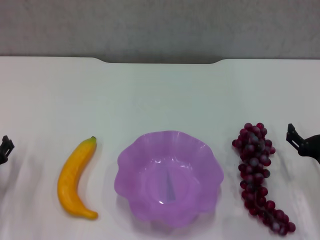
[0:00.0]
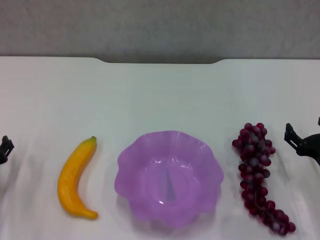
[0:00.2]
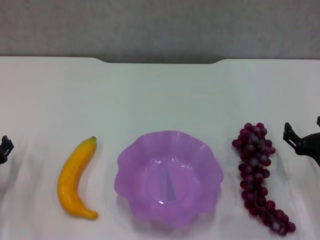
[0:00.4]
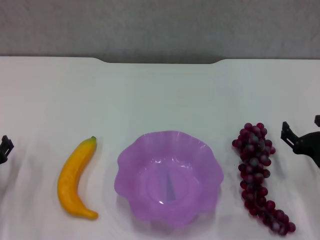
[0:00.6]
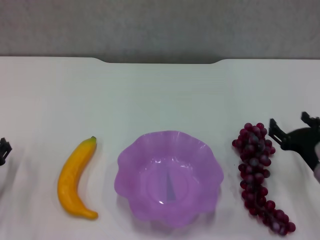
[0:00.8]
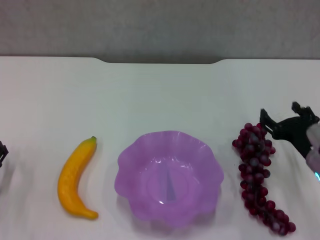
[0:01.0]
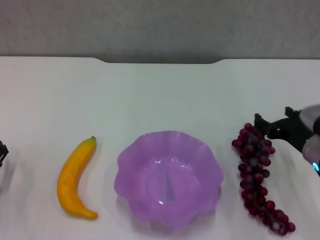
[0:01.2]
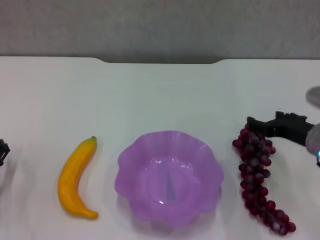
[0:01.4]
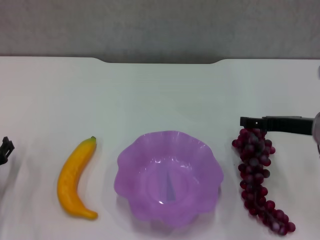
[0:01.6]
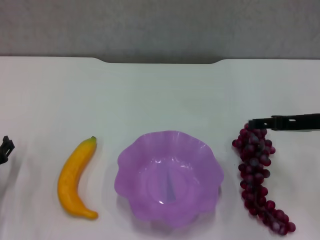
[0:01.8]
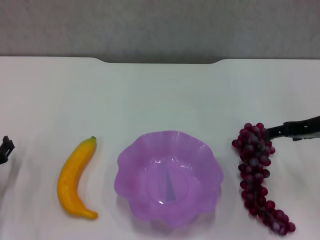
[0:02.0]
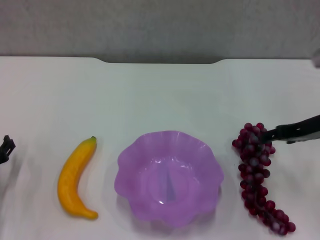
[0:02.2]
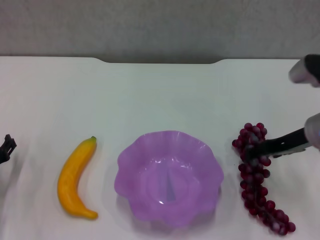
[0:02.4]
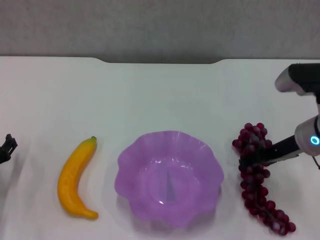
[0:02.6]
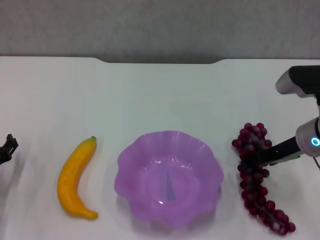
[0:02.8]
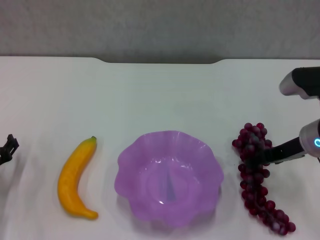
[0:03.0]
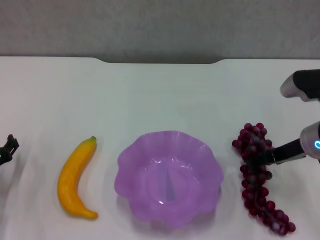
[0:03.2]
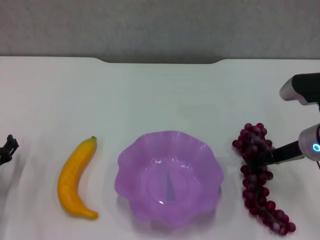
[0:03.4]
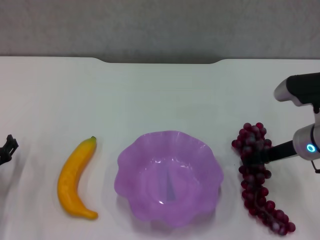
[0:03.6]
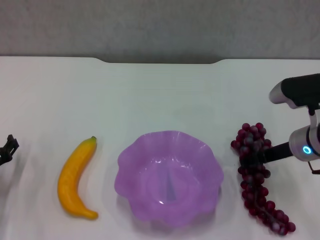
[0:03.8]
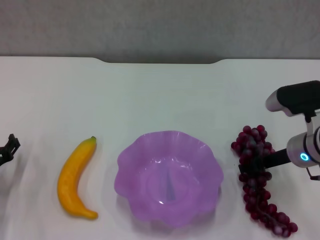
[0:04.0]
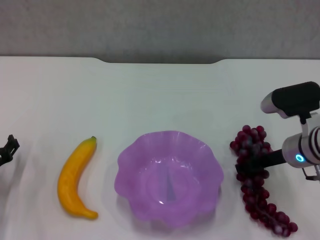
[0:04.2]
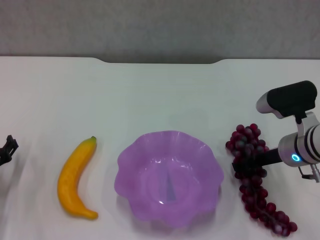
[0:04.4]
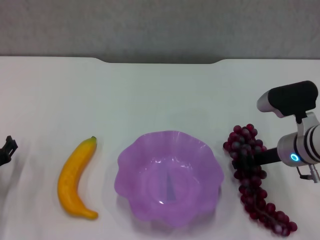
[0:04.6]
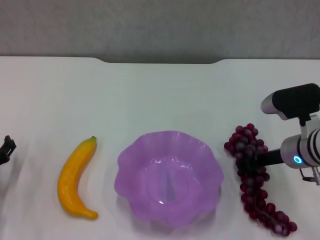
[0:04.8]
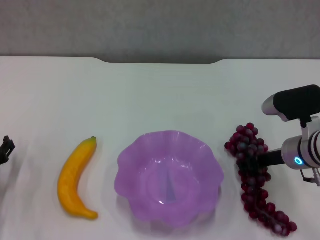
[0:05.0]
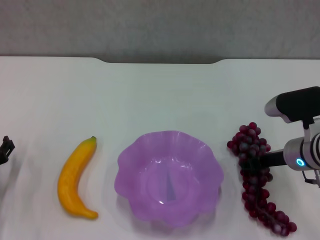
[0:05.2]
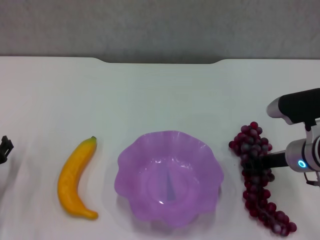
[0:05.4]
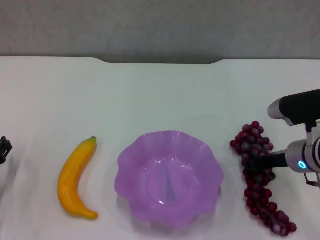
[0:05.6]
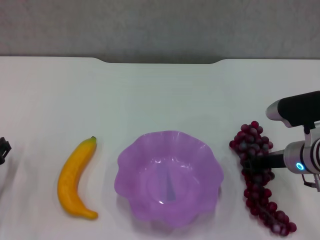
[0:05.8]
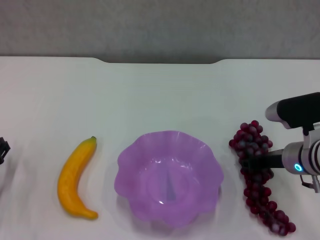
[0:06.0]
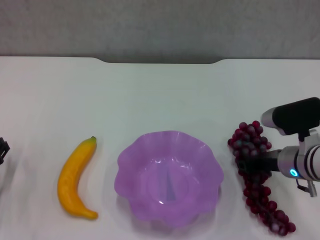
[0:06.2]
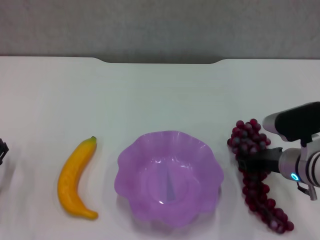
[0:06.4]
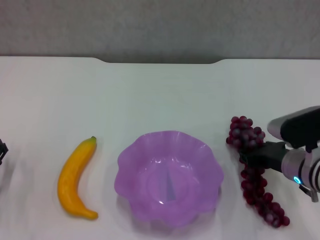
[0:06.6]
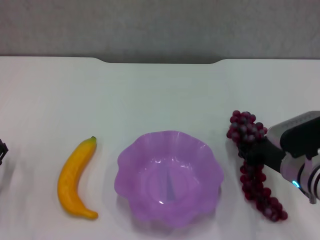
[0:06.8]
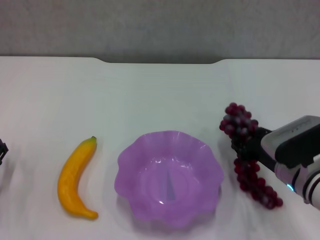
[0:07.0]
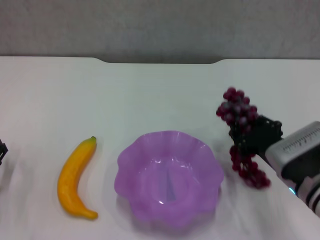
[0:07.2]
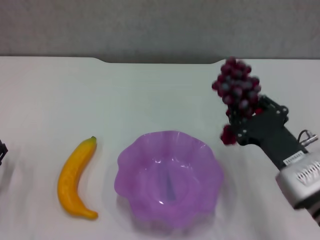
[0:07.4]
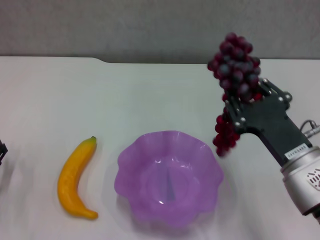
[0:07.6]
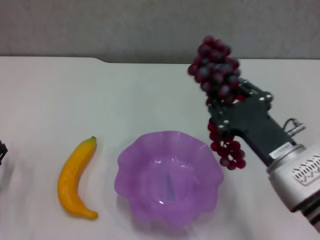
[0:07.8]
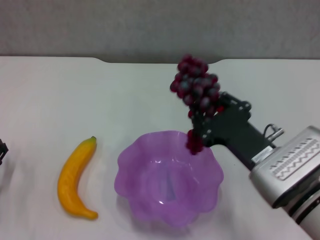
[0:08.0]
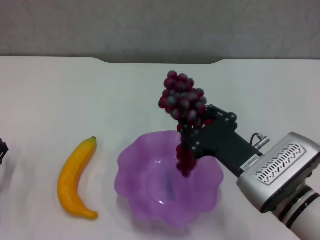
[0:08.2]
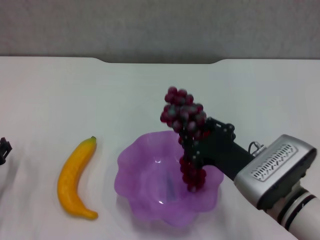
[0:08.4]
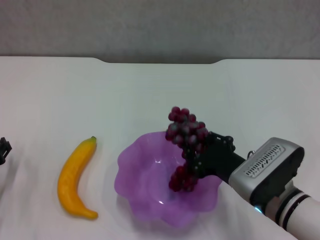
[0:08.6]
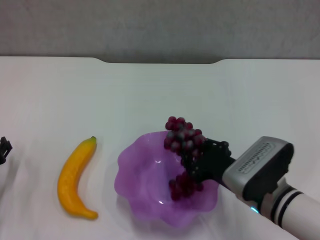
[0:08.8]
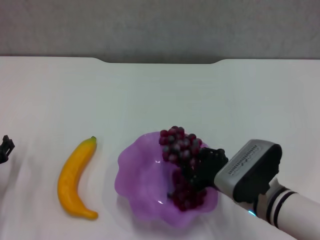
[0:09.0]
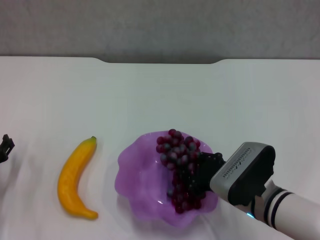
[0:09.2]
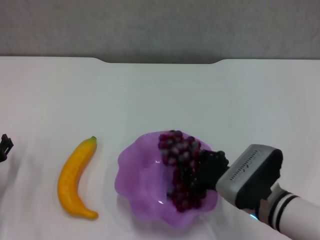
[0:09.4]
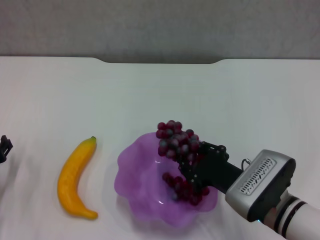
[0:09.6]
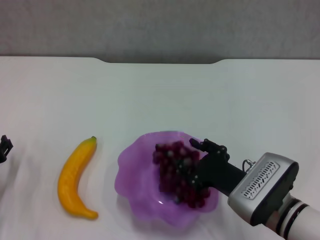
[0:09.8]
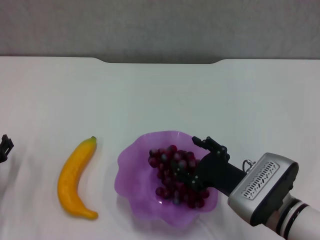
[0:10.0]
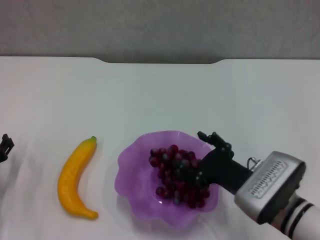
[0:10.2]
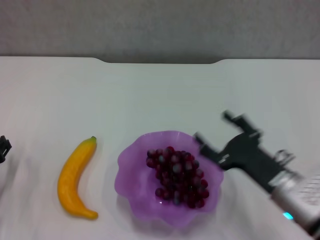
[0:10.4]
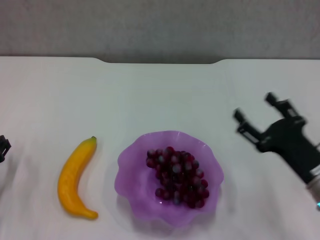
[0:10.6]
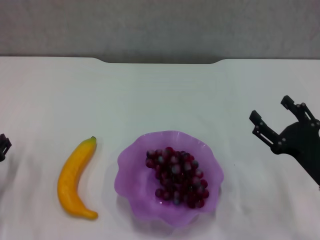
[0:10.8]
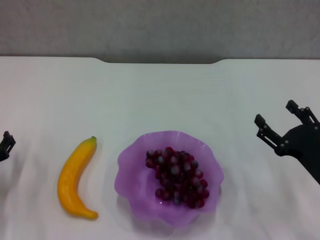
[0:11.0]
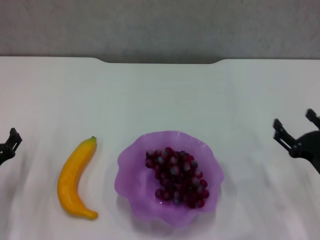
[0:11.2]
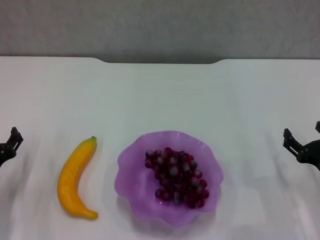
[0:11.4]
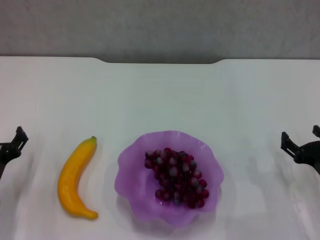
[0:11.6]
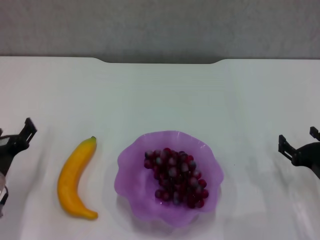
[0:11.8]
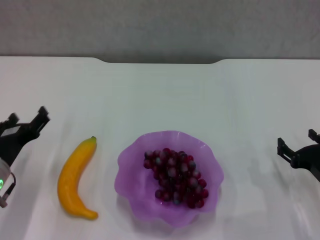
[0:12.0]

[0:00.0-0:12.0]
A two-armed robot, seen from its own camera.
Step, 0:00.0 to 0:04.4: Grasp the grape with right gripper.
Step, 0:04.6 to 0:10.4: Place the grape in the purple plate with right gripper.
0:00.0 to 0:01.6: The right gripper shifts about 15 cm upward and forward.
0:03.0 to 0:04.4: The grippers stay close to where they were, moving slightly.
0:04.4 to 0:06.0: The right gripper closes its fingers.
0:06.0 to 0:07.6: The right gripper moves backward, about 10 cm.
0:07.6 to 0:09.0: The right gripper heads downward, covering roughly 5 cm.
0:09.0 to 0:10.4: The right gripper opens its fingers.
0:10.4 to 0:12.0: The right gripper goes roughly 10 cm to the right.

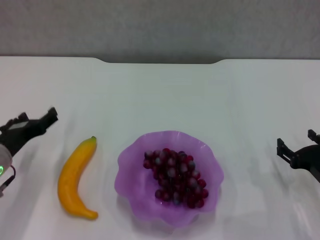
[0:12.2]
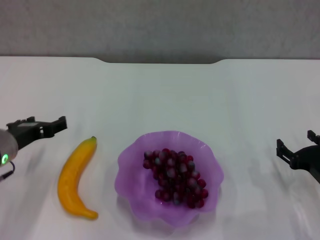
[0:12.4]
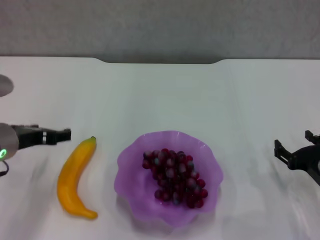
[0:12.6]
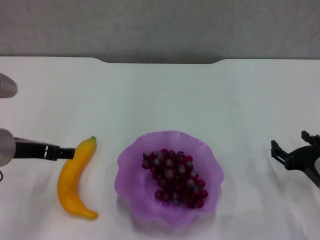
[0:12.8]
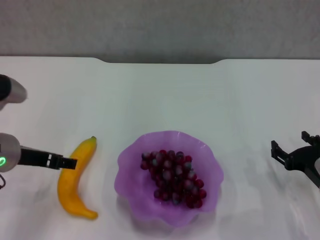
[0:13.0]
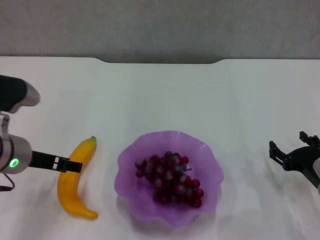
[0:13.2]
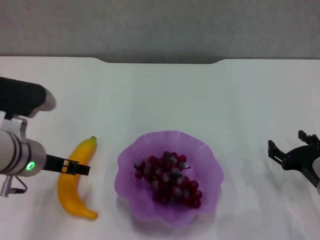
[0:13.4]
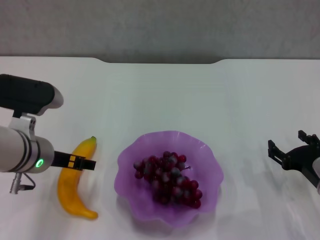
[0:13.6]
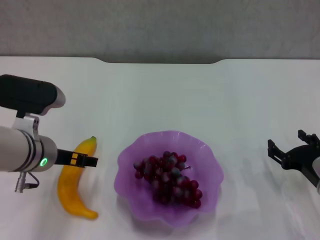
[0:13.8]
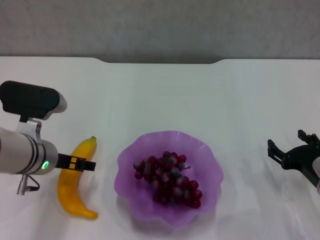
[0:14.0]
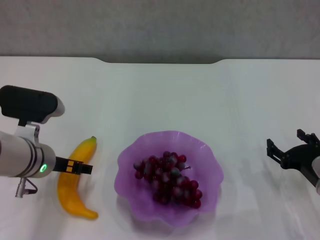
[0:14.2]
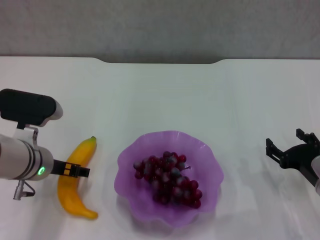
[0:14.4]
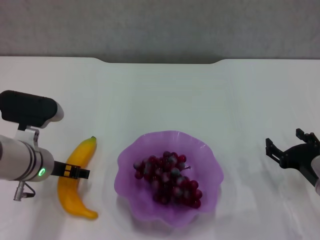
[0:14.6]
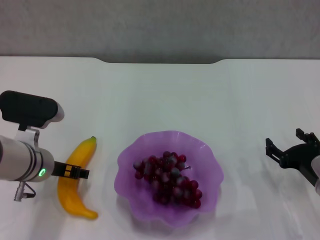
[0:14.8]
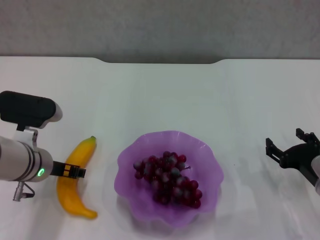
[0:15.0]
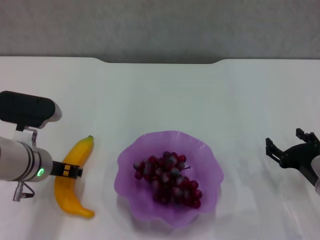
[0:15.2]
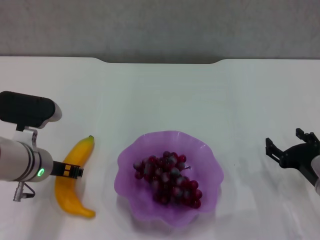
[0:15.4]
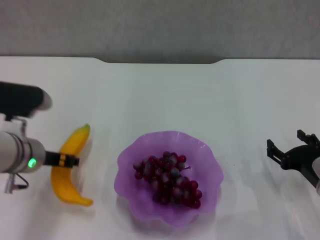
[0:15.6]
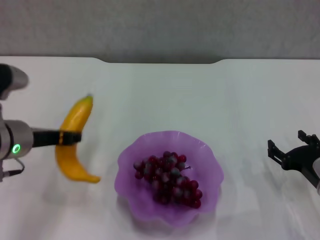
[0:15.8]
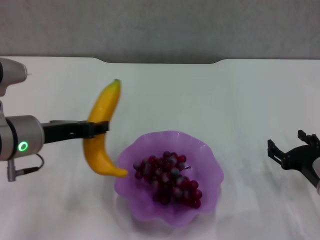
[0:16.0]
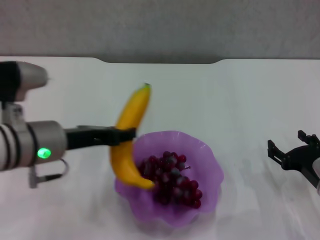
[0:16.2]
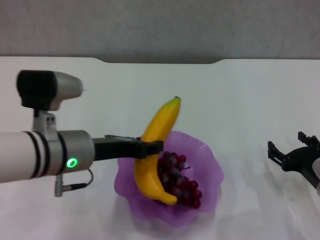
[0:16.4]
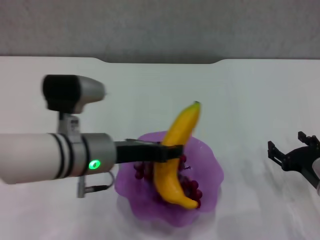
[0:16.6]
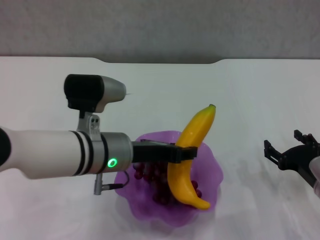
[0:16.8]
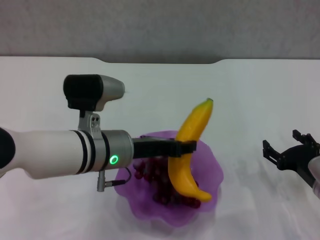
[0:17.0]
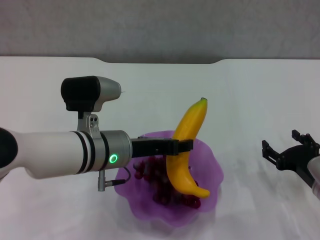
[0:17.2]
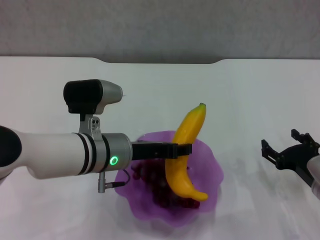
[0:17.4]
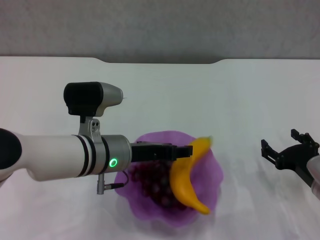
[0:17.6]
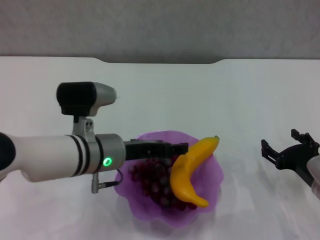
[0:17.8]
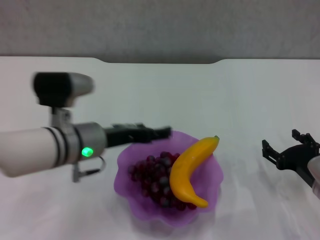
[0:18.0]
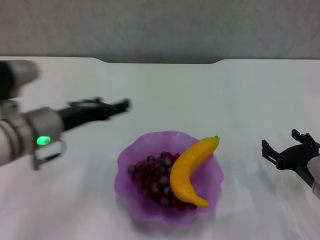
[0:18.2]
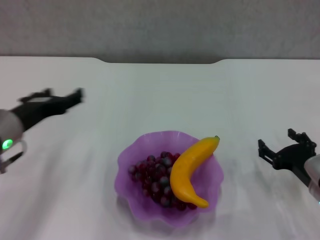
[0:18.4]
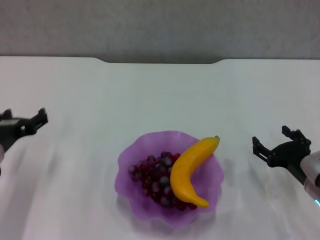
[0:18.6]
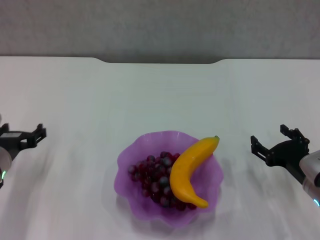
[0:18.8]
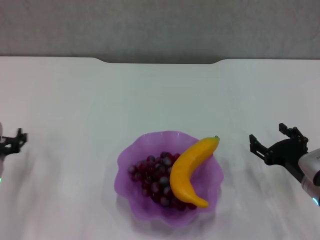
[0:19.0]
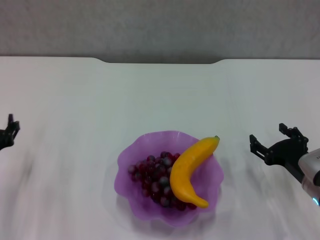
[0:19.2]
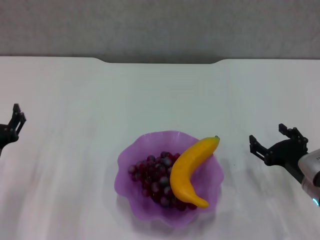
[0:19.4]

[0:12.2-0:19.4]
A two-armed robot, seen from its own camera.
Step, 0:12.2 to 0:15.2: Grasp the banana with left gripper.
Step, 0:15.4 to 0:17.8: Place the banana in the purple plate with left gripper.
0:12.2 to 0:13.6: The left gripper goes about 10 cm to the right and upward.
0:13.6 to 0:15.0: The grippers make only small movements.
0:15.0 to 0:16.6: The left gripper is displaced to the right and upward by about 10 cm, and closes up.
0:16.6 to 0:18.0: The left gripper opens.
0:18.0 to 0:19.4: The left gripper travels to the left, downward and backward by approximately 15 cm.
